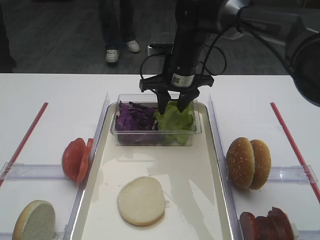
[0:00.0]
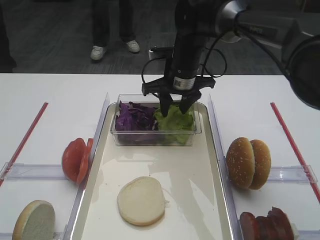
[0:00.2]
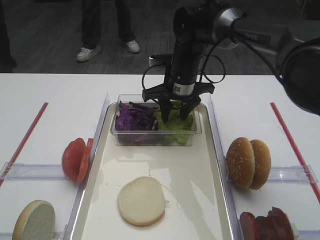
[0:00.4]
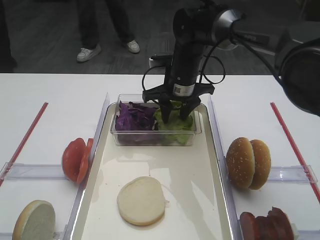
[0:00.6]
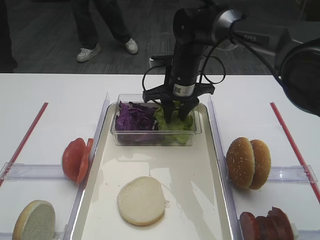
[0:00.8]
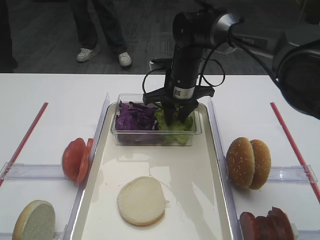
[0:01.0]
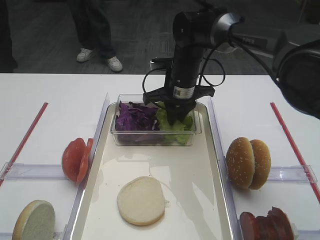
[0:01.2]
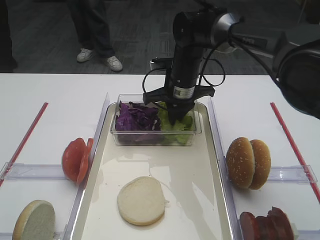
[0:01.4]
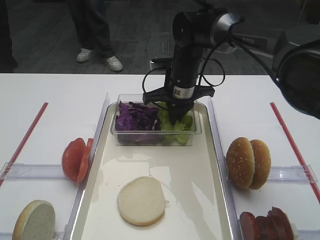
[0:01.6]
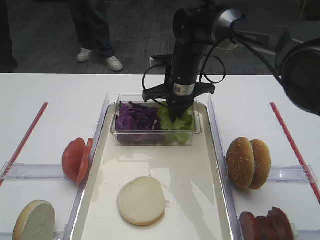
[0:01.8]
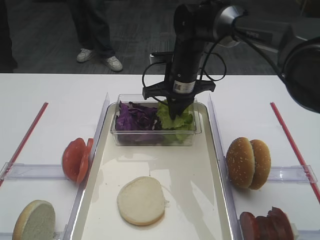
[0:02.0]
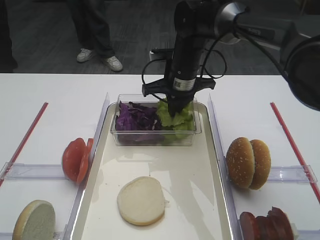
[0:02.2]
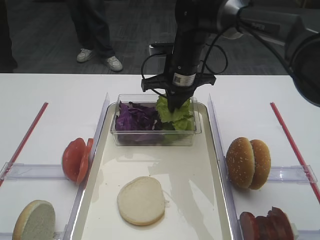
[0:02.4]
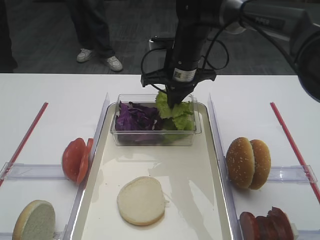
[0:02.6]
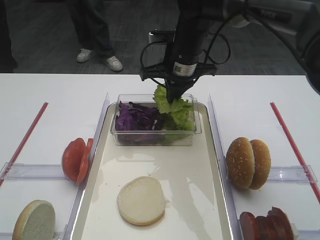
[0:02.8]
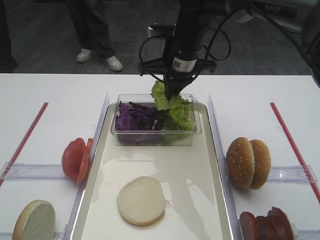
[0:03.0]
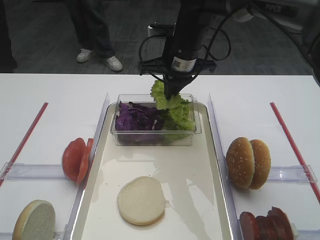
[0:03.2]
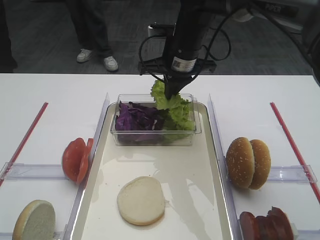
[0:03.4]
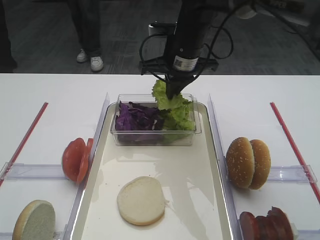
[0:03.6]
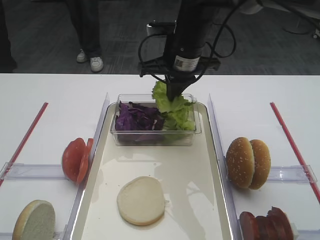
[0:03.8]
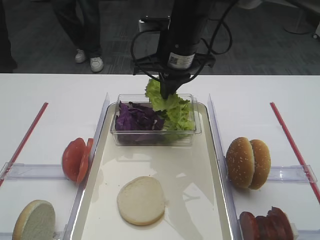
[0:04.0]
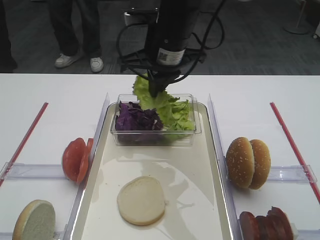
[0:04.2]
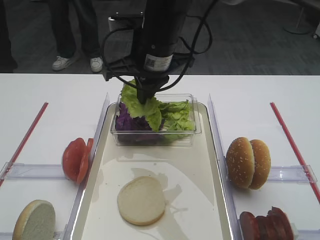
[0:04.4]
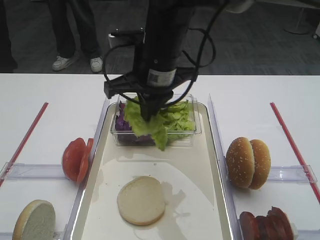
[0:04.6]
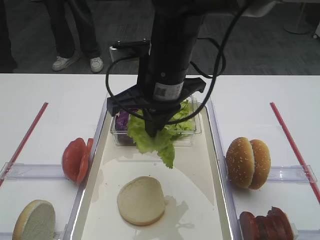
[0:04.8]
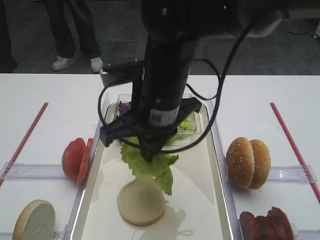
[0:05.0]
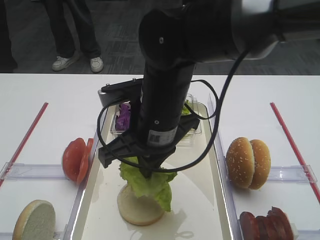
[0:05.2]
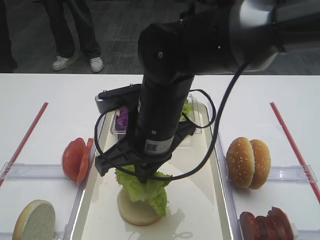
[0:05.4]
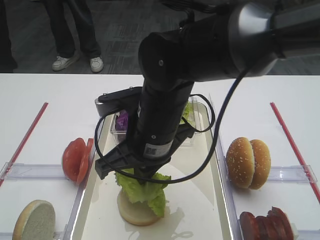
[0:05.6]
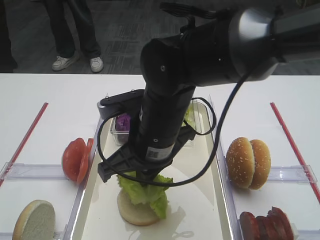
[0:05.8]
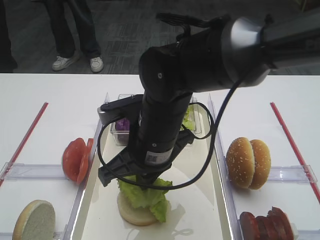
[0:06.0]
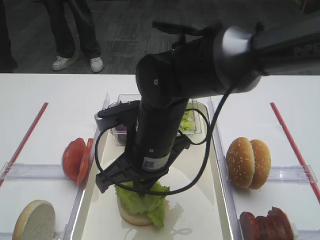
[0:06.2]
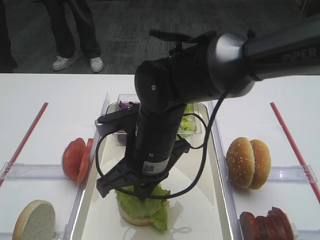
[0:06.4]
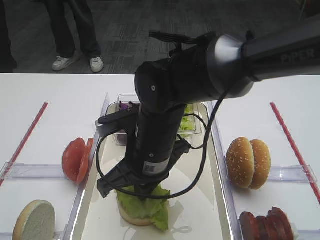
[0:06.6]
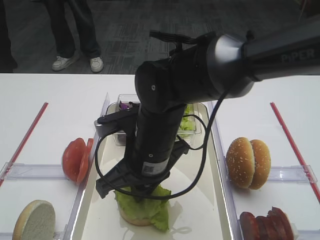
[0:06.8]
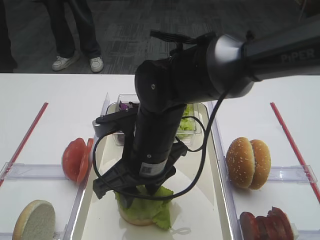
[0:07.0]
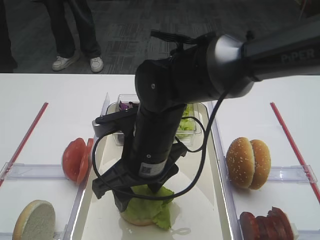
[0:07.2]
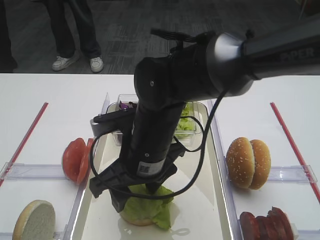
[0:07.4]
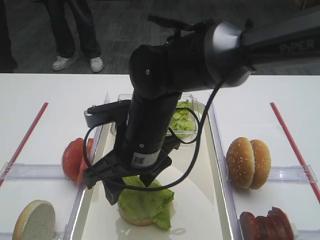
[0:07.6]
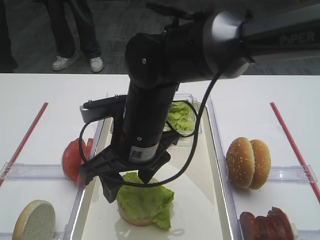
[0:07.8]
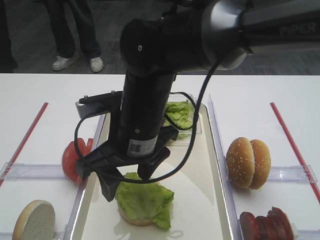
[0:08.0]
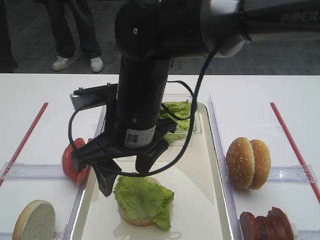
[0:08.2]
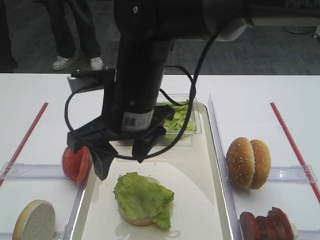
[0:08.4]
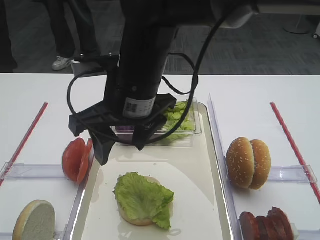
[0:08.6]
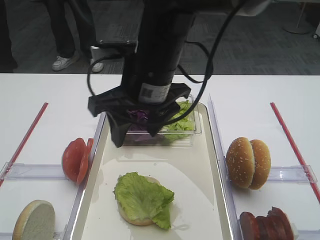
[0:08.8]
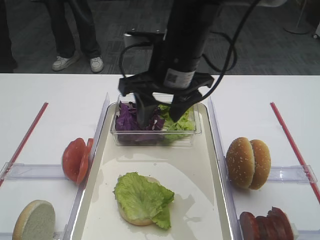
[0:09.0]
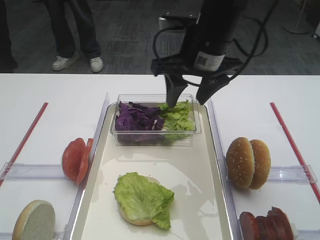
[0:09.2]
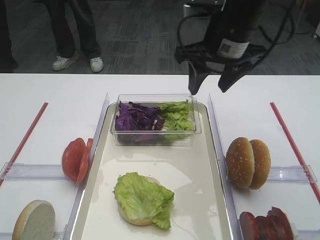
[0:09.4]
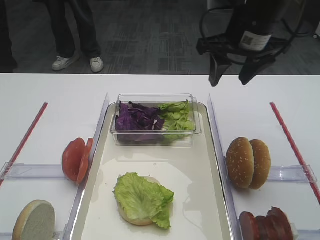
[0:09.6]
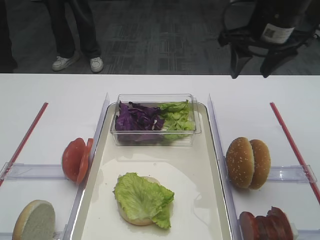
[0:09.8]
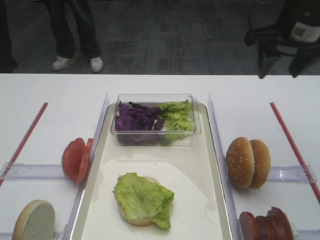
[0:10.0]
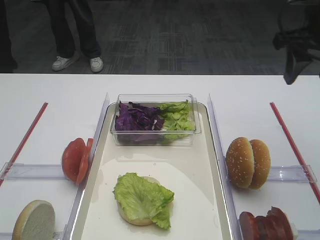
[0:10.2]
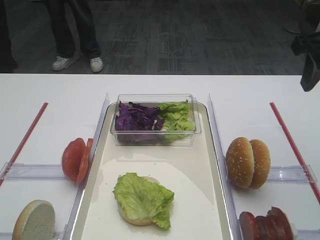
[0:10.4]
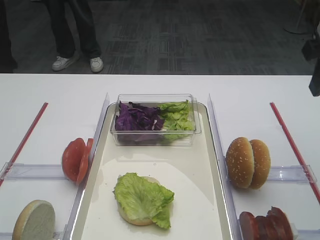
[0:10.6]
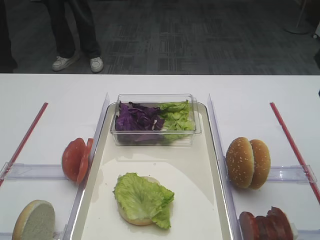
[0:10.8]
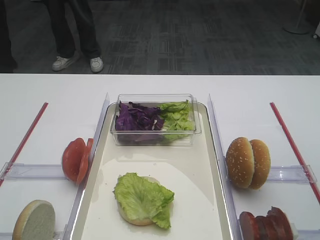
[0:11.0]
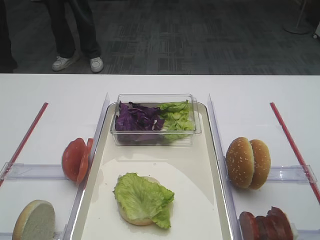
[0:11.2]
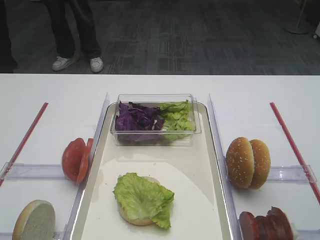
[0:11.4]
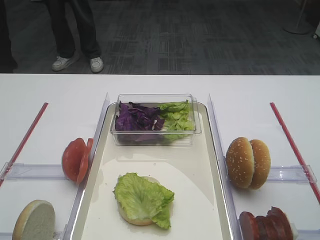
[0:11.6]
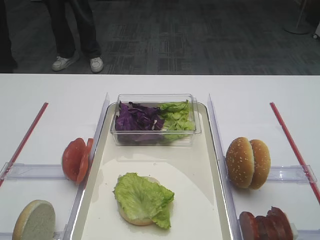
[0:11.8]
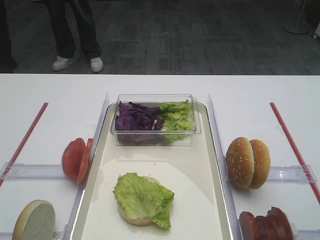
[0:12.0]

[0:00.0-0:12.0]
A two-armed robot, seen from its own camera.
Step, 0:00.0 to 0:02.8: Pick up the lettuce leaf with the right gripper.
Step, 0:03.0 to 0:08.2: Place the lettuce leaf on the bread slice with the right gripper.
0:00.0 to 0:01.6: The right gripper closes its fingers.
0:01.6 to 0:03.0: The right gripper is displaced upward by some 5 cm.
0:03.0 to 0:04.4: The right gripper heads backward and to the left, covering some 10 cm.
0:04.4 to 0:06.0: The right gripper goes about 15 cm backward and downward.
0:06.0 to 0:07.6: The right gripper opens up.
0:07.6 to 0:09.0: The right gripper goes roughly 15 cm upward, forward and to the right.
0:09.0 to 0:10.4: The right gripper goes some 25 cm to the right.
0:10.4 to 0:12.0: The right gripper heads backward, covering about 20 cm.

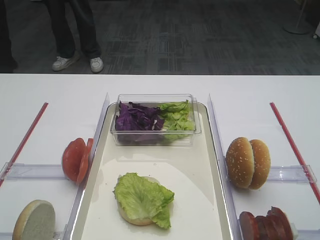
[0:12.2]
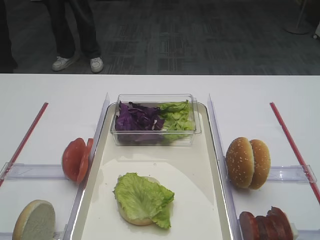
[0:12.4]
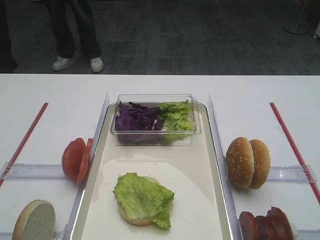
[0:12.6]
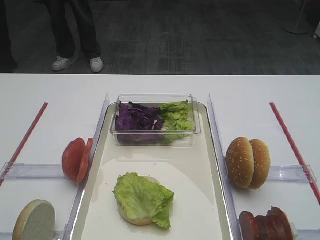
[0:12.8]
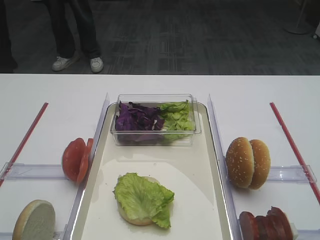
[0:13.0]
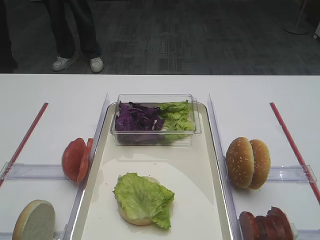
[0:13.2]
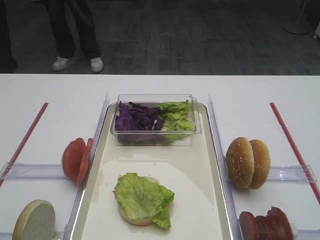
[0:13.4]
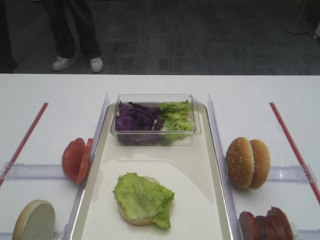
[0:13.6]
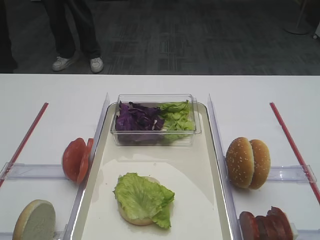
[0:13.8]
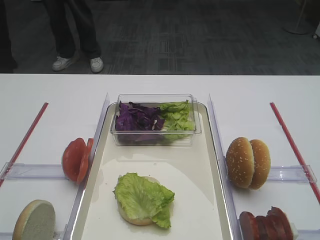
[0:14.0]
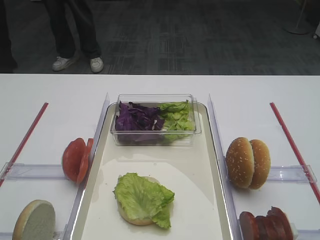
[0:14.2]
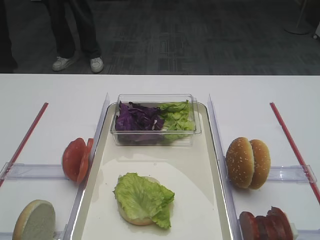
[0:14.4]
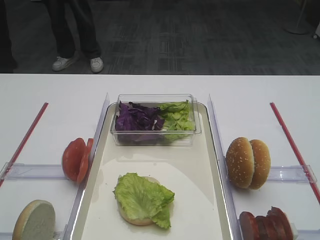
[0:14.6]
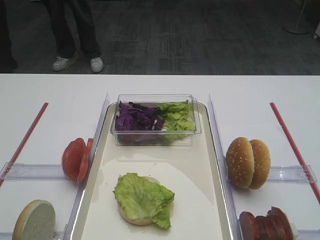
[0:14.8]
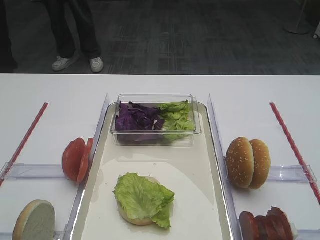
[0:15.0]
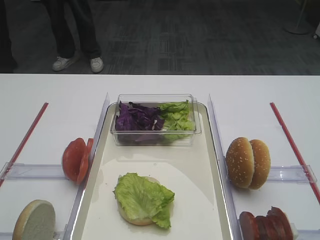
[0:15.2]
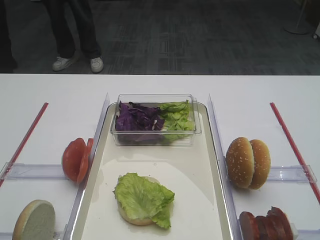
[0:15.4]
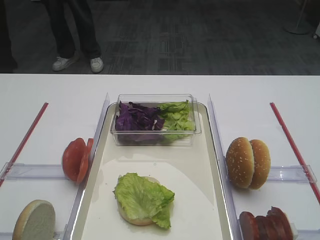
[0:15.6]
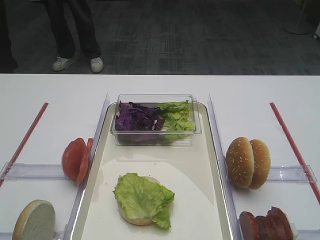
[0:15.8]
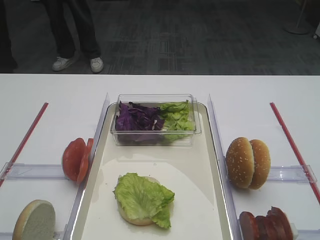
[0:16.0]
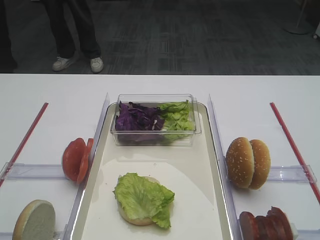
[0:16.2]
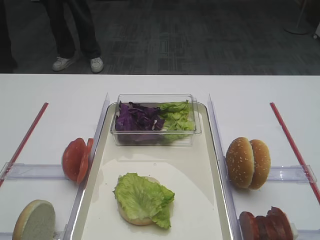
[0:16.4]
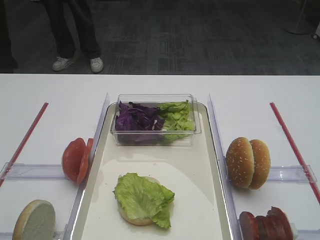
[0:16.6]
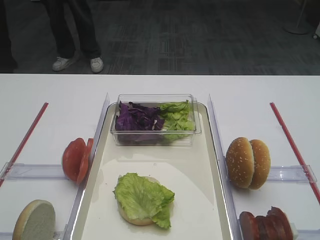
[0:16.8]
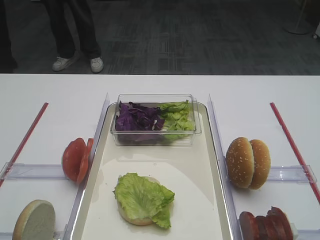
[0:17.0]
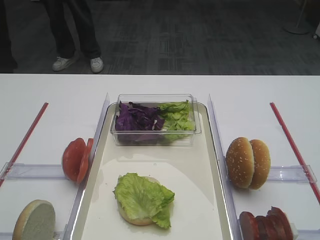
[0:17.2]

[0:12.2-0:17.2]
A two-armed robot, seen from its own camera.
0:13.8 to 0:17.2: Neither gripper changes place.

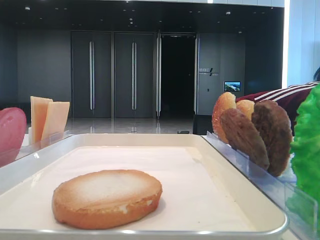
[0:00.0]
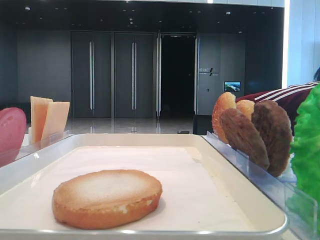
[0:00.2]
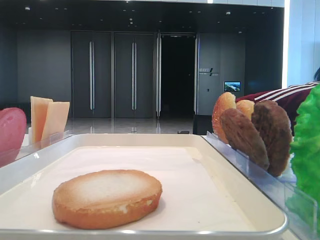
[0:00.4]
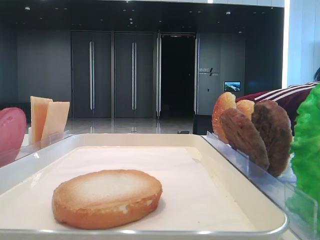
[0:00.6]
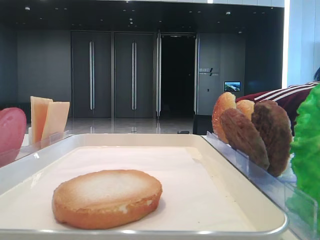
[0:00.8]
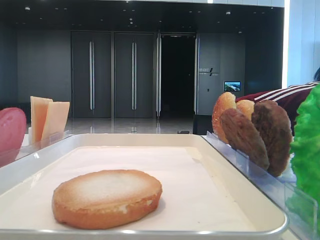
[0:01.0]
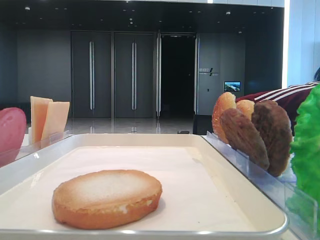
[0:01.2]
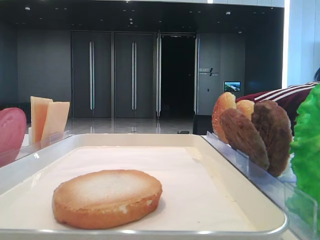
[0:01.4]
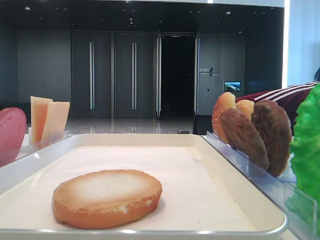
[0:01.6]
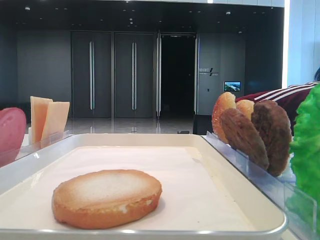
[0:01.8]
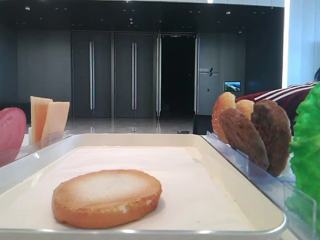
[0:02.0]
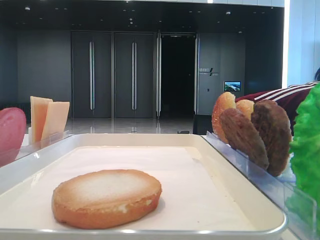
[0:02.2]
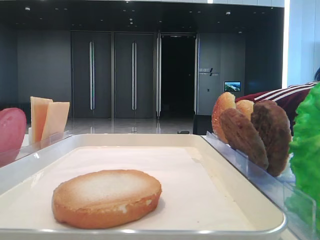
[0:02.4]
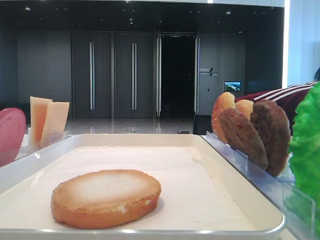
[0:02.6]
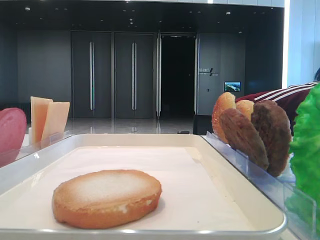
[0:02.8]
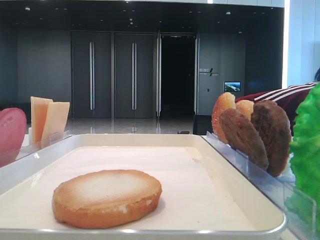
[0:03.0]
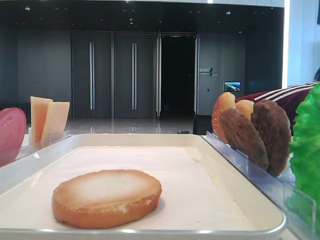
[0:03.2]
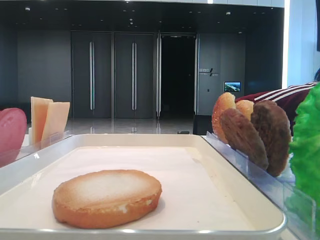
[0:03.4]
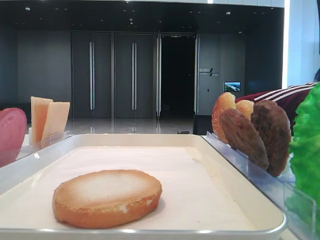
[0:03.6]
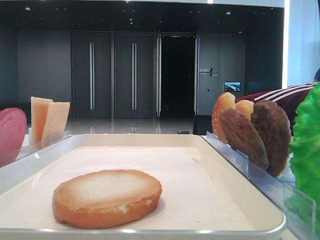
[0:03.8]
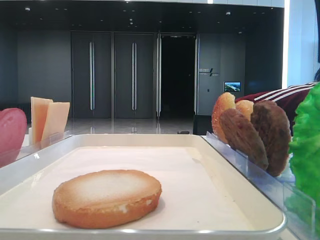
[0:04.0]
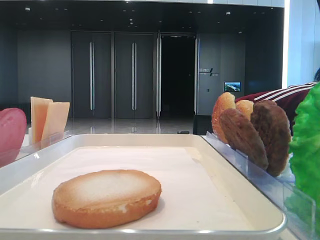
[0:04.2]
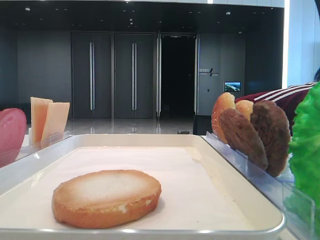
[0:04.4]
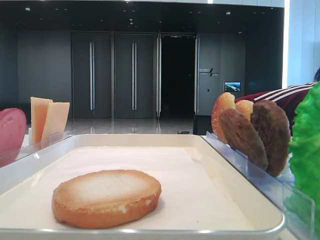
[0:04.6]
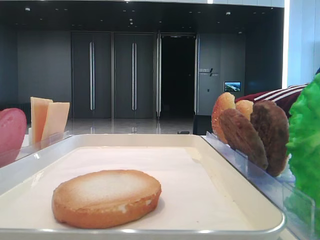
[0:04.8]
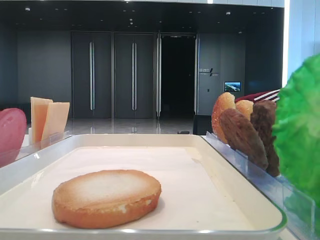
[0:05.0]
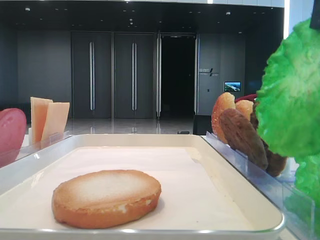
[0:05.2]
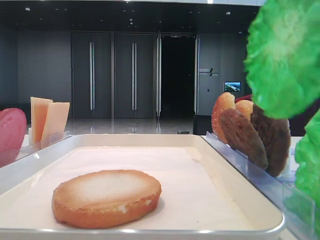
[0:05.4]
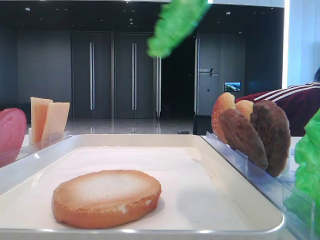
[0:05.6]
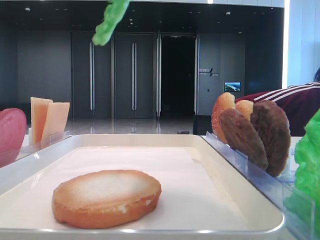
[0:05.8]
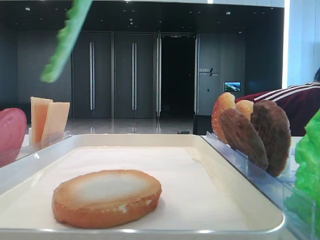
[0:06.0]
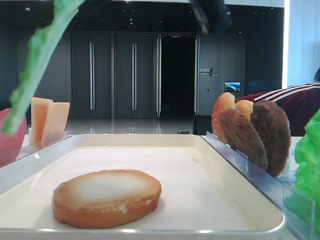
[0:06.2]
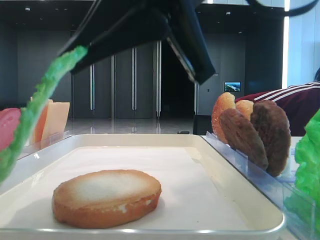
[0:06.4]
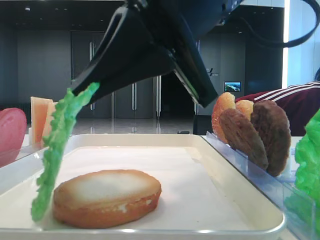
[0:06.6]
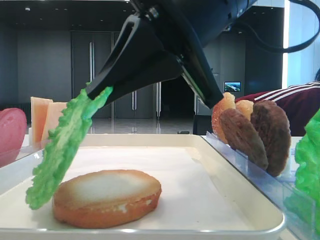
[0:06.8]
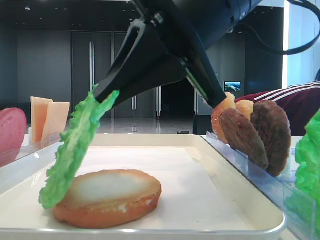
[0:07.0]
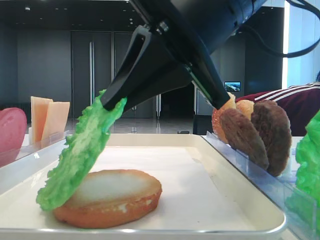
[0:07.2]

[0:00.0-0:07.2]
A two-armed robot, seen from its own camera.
0:02.8 to 0:04.4: The right gripper moves downward, some 5 cm.
0:04.4 to 0:05.8: The right gripper heads upward and to the left, covering about 10 cm, and closes its fingers. The left gripper closes its fingers.
0:05.8 to 0:07.2: The right gripper is displaced downward, forward and to the left by roughly 15 cm.
